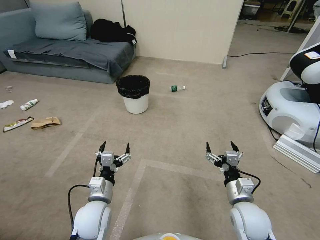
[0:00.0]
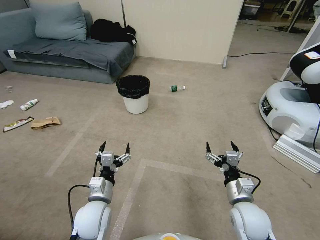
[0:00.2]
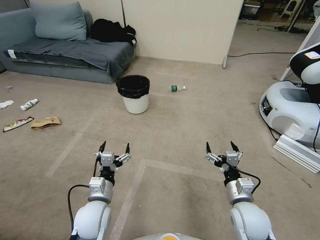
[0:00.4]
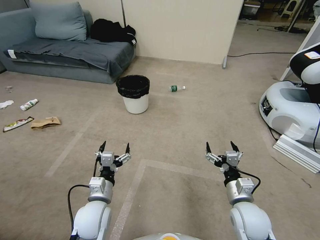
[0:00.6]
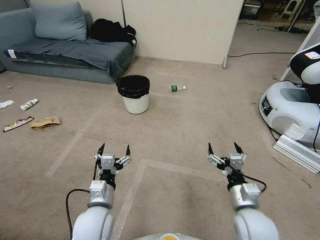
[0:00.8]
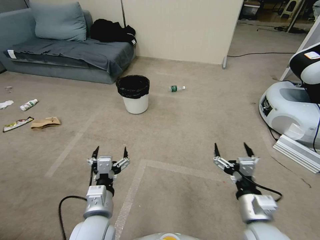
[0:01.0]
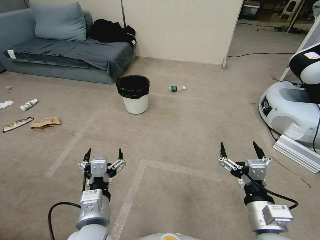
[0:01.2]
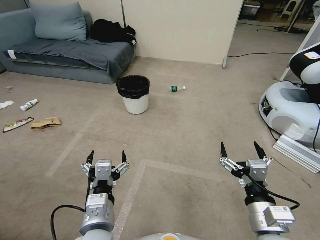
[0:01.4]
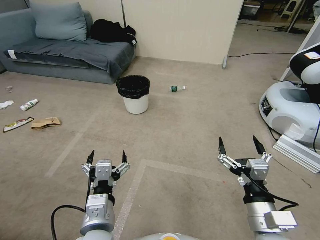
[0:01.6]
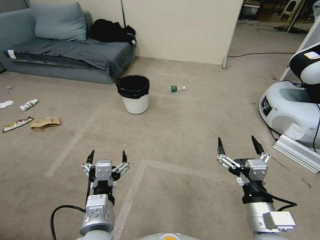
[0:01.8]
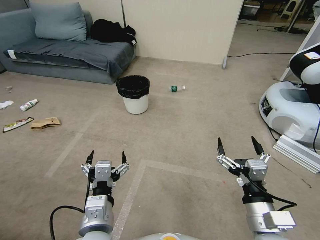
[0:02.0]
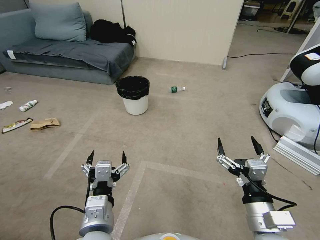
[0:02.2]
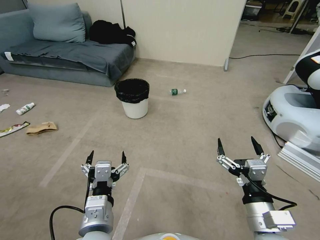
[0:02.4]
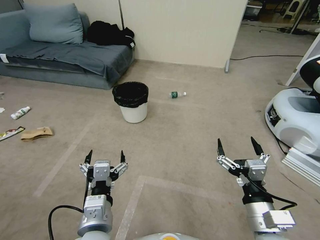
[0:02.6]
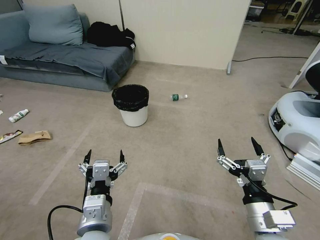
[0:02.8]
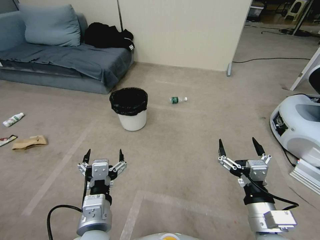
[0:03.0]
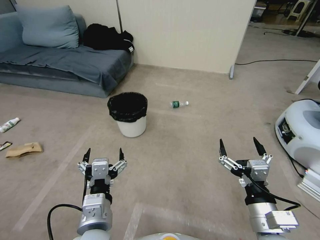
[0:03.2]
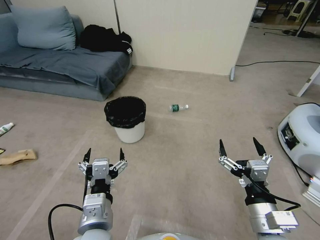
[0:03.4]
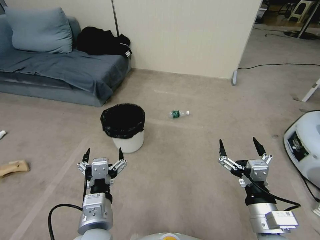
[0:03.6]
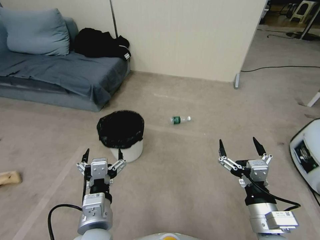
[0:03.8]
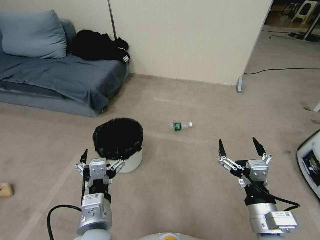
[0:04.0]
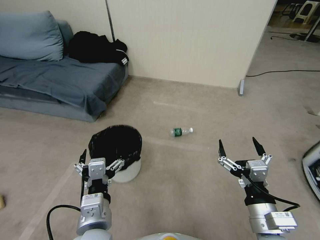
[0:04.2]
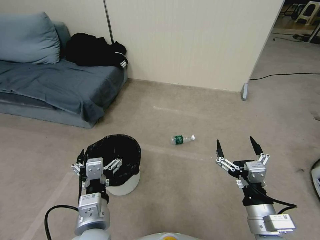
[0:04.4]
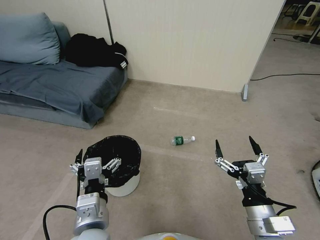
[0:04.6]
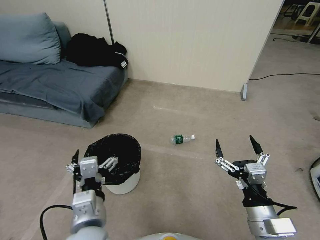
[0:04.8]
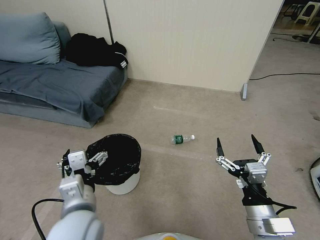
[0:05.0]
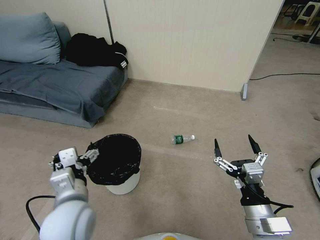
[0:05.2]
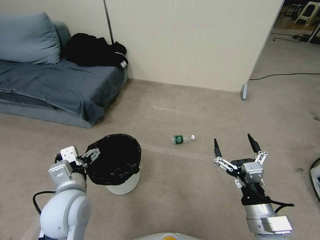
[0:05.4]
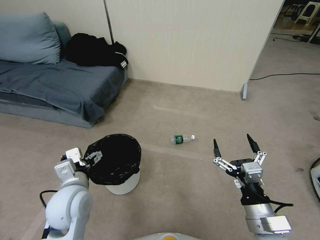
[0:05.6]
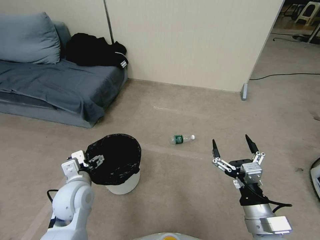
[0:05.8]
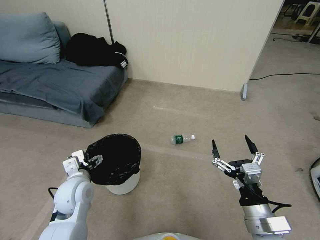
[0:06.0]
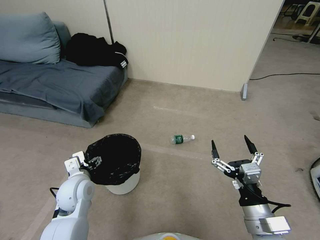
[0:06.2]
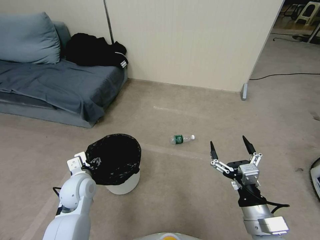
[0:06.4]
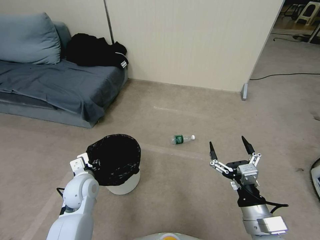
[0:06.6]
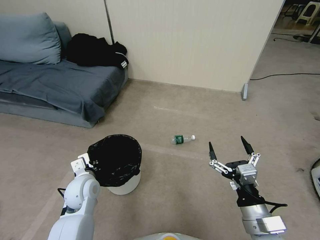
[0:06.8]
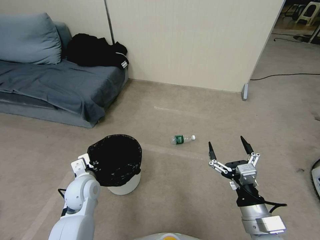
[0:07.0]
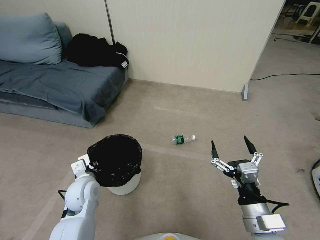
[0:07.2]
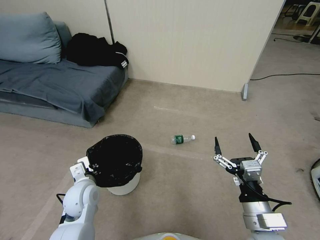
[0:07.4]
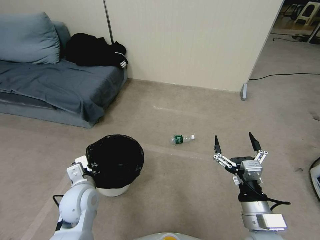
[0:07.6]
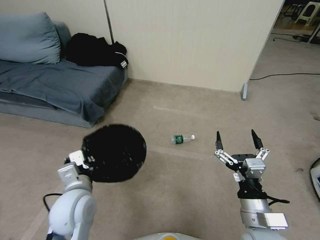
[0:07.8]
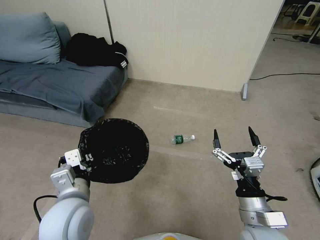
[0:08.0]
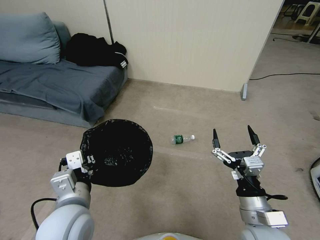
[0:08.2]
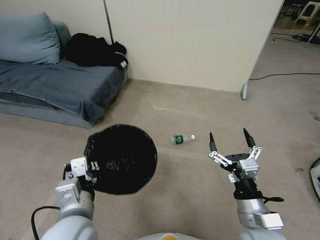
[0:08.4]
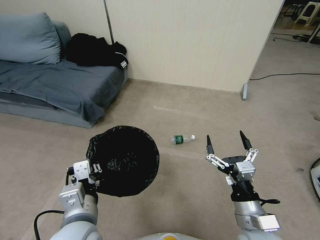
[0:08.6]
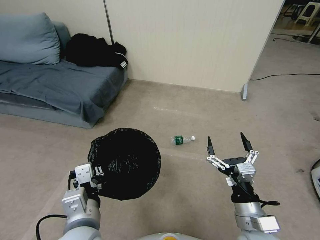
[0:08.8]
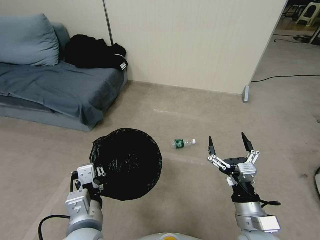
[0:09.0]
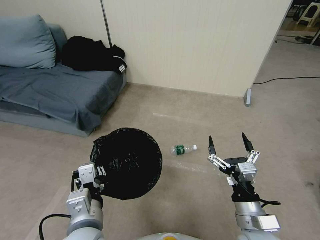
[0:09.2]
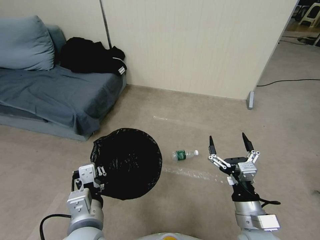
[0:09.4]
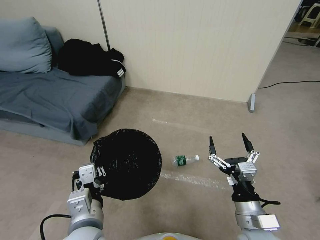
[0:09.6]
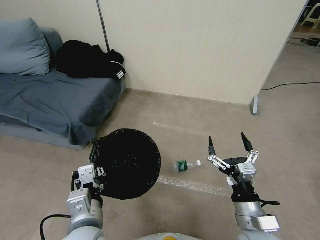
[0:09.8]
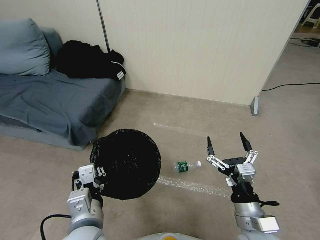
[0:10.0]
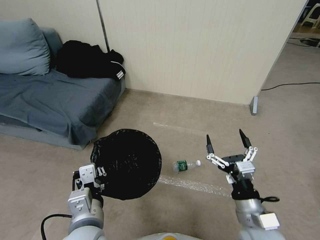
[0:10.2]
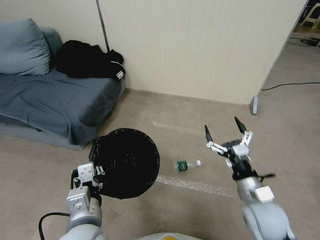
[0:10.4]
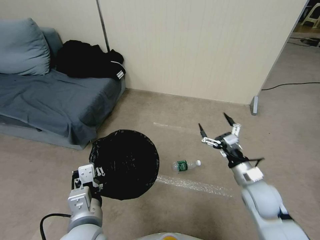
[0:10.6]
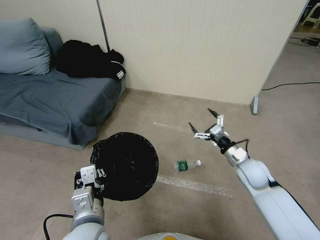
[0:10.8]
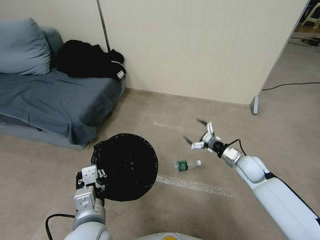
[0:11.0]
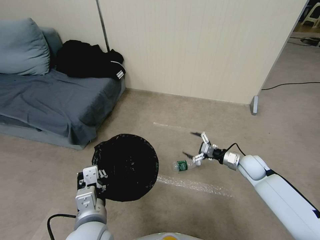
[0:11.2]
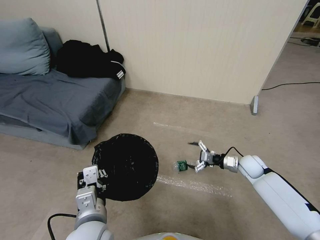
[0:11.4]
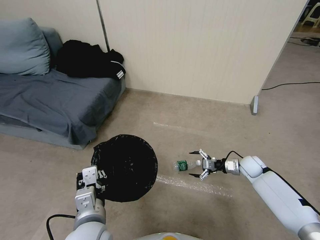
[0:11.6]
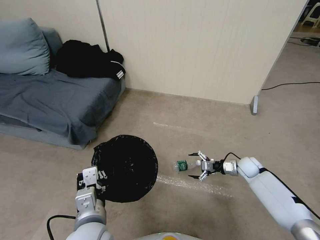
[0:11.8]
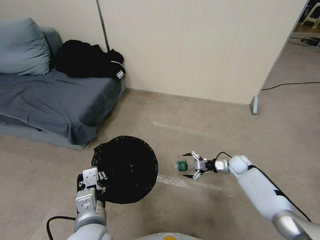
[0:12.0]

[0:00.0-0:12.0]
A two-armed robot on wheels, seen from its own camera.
Task of the whole recording: Pick up the trash bin, then pick up the garbage from the floor and place it into the trash bin.
0:04.4 to 0:06.0: The left gripper travels forward, to the left and downward by roughly 20 cm.
0:06.0 to 0:07.6: The left gripper closes.
0:07.6 to 0:09.0: The left gripper travels backward, upward and to the right by some 15 cm.
0:09.0 to 0:10.4: The right gripper heads forward, covering some 5 cm.
0:10.4 to 0:12.0: The right gripper travels forward, downward and to the right by about 30 cm.

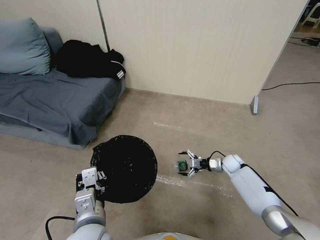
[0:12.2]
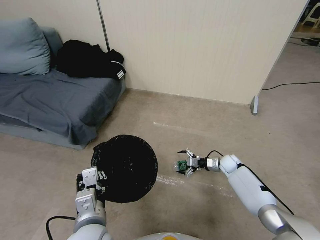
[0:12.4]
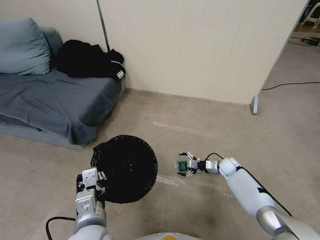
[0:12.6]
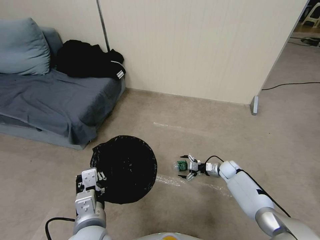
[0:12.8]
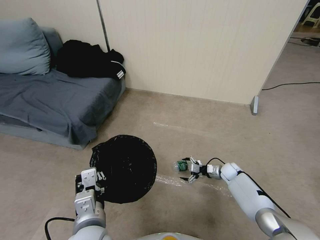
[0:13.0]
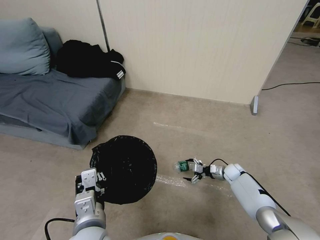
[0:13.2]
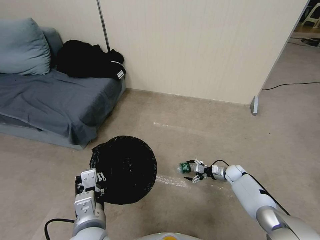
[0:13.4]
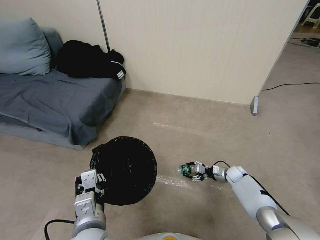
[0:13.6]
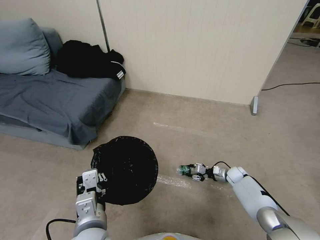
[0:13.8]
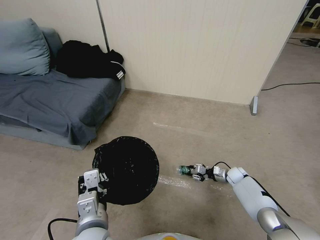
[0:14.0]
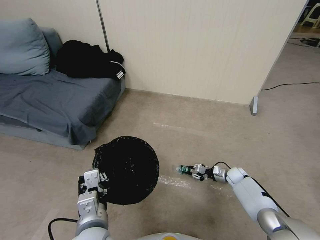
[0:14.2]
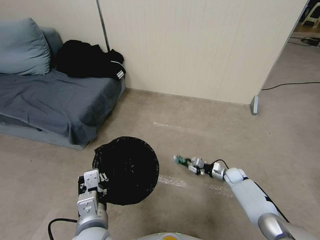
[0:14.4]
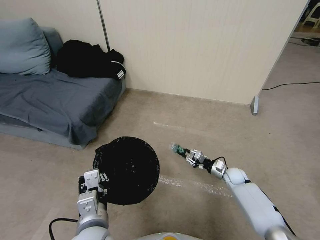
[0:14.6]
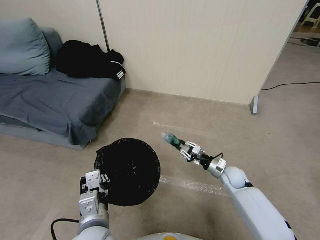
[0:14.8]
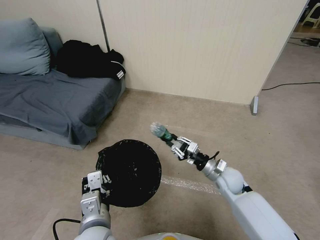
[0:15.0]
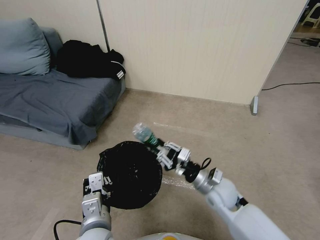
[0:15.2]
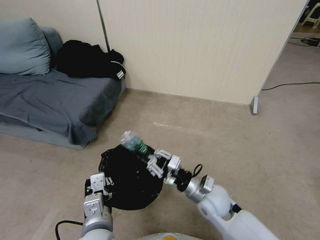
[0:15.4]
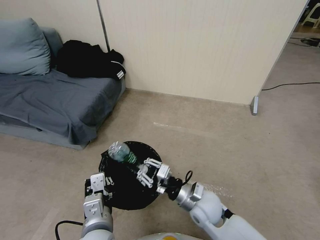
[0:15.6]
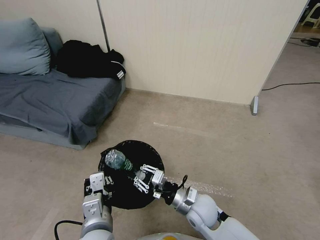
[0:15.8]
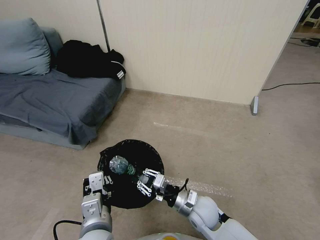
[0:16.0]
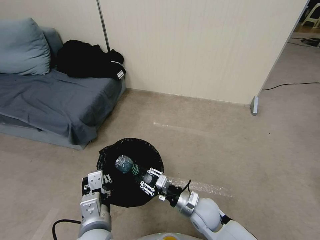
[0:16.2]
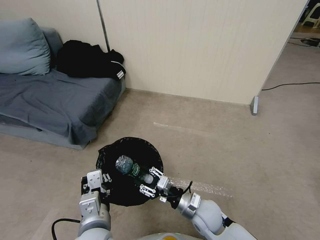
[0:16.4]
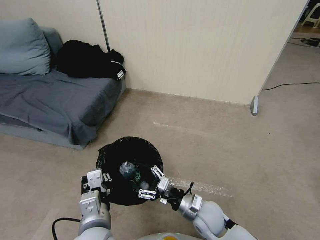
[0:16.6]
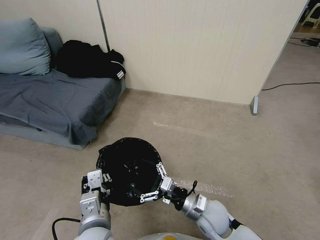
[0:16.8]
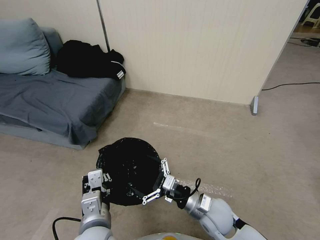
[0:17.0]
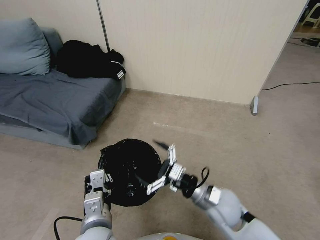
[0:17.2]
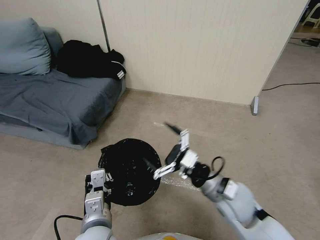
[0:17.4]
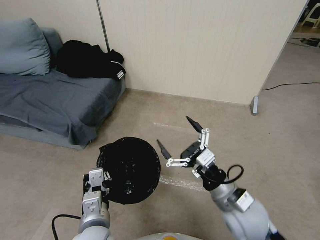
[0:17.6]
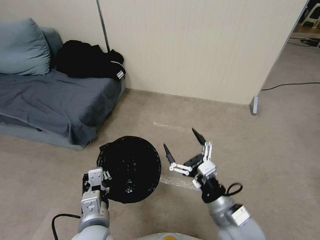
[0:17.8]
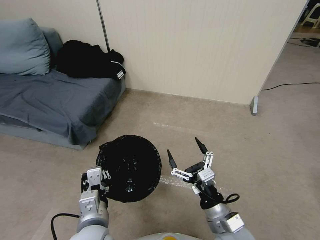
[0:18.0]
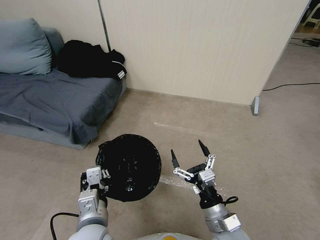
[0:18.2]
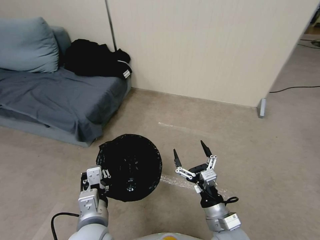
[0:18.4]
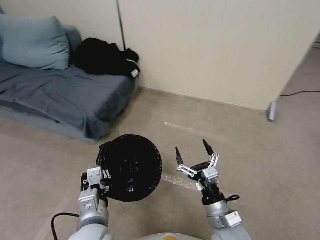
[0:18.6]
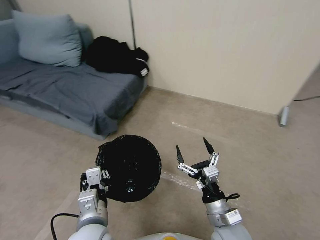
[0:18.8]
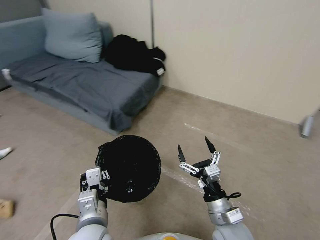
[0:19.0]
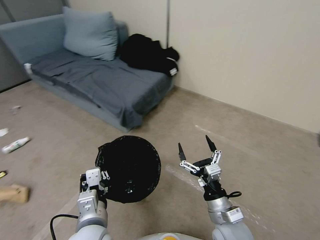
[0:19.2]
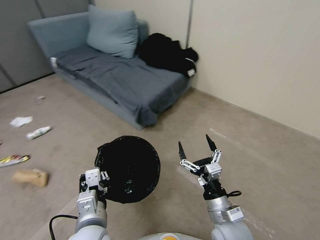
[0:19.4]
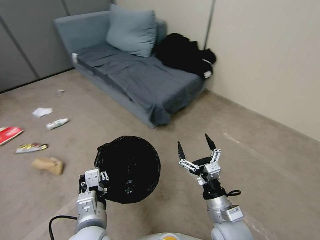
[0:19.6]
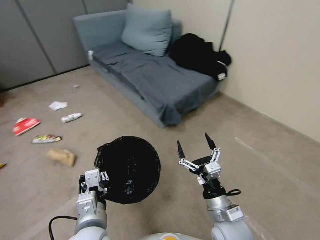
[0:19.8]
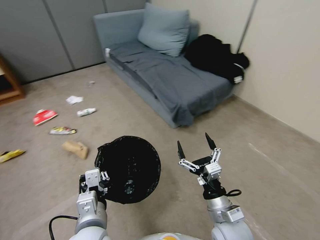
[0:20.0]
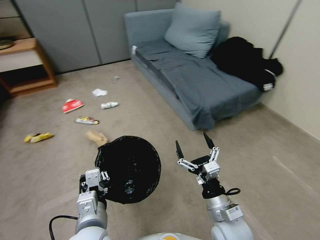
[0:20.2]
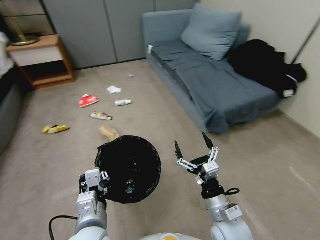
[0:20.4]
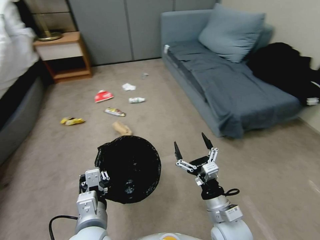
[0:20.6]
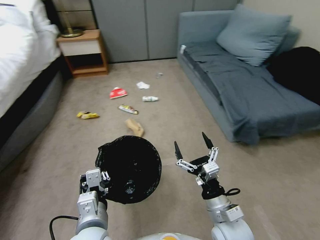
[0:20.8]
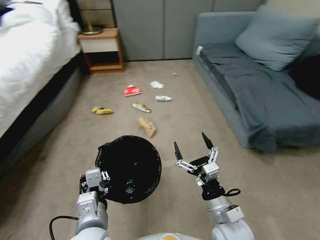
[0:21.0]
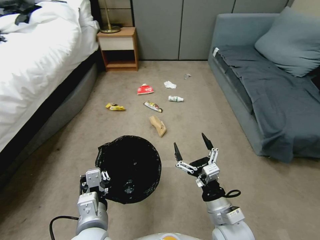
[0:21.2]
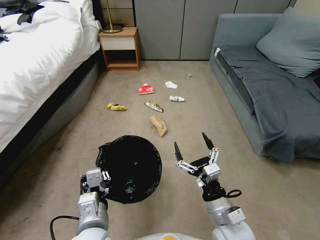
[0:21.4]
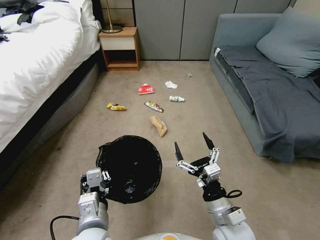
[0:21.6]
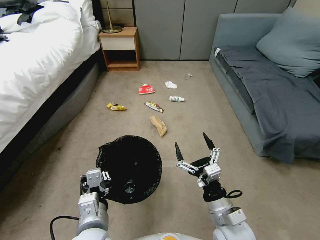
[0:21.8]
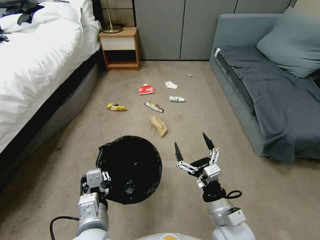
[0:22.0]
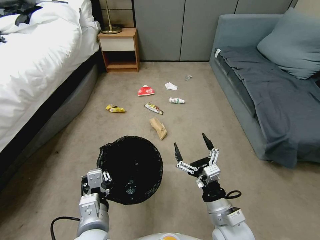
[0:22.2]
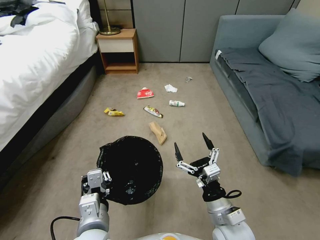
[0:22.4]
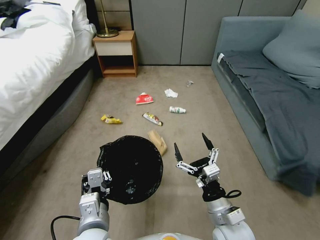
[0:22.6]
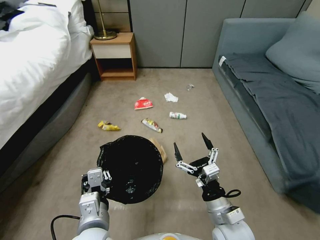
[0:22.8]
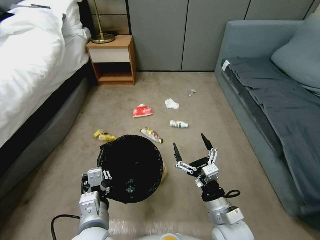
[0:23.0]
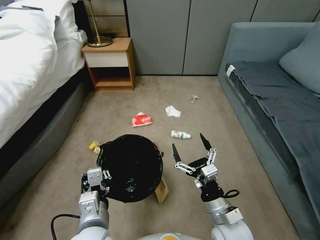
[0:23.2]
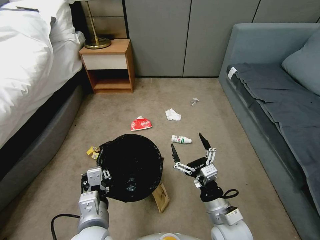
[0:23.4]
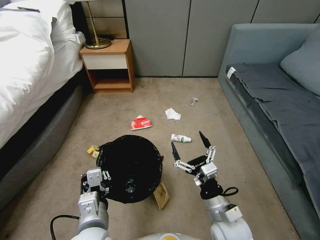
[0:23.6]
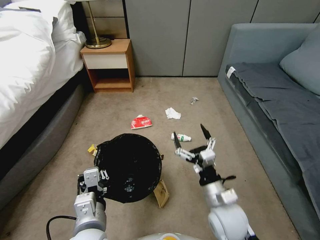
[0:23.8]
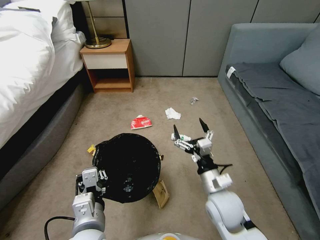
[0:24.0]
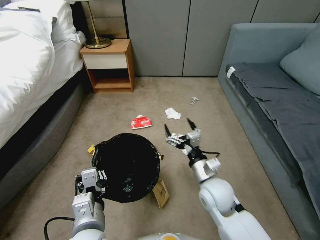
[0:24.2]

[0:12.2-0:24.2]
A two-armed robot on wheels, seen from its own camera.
Task of the whole recording: Pick up the trash bin, then pick up the garbage from the floor and place it into the trash bin.
0:12.2 to 0:13.8: The right gripper shifts about 5 cm downward, and closes up.
0:13.8 to 0:15.2: The right gripper travels upward, to the left and backward by about 30 cm.
0:15.2 to 0:16.6: The right gripper goes some 10 cm backward, downward and to the left, and opens.
0:16.6 to 0:18.2: The right gripper goes about 10 cm backward and upward.
0:21.2 to 0:22.6: Neither gripper changes place.
0:22.6 to 0:24.2: The right gripper heads forward, covering about 10 cm.
